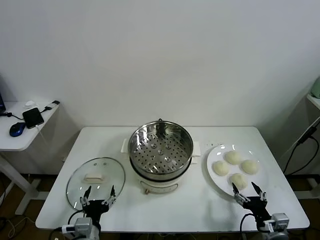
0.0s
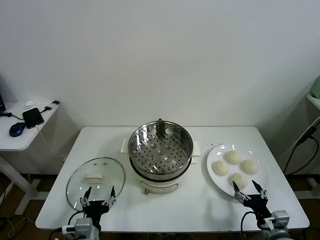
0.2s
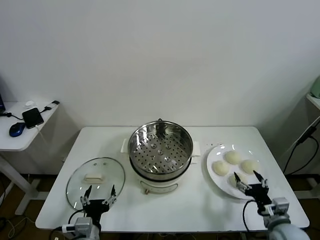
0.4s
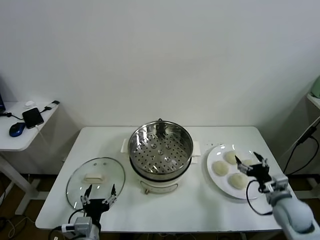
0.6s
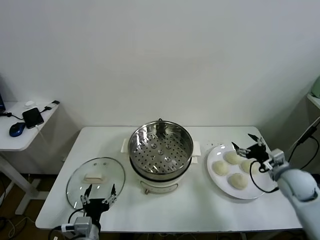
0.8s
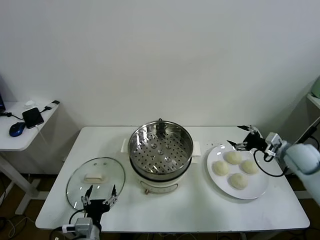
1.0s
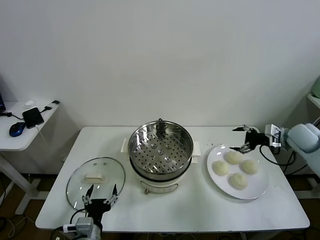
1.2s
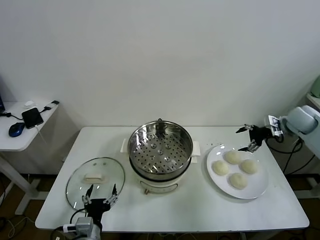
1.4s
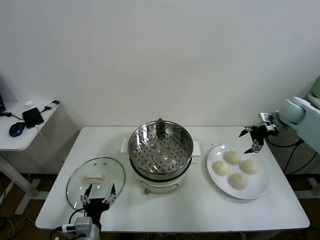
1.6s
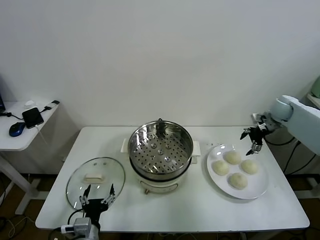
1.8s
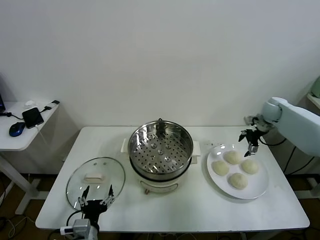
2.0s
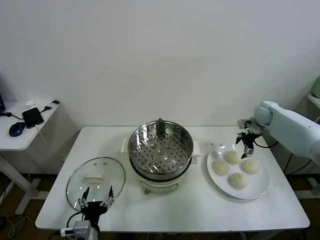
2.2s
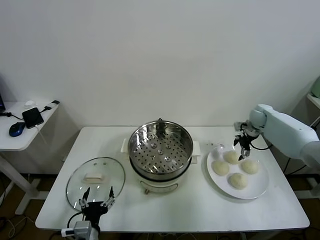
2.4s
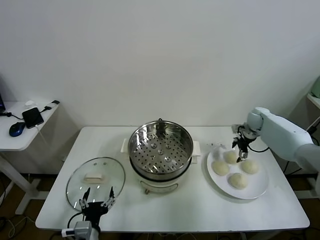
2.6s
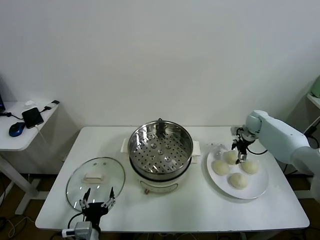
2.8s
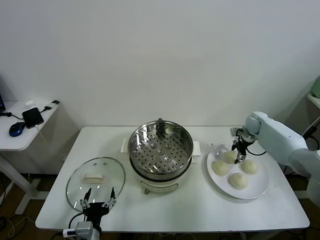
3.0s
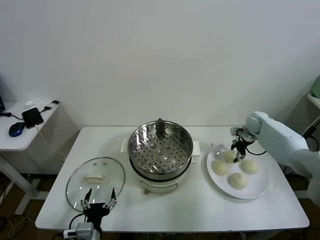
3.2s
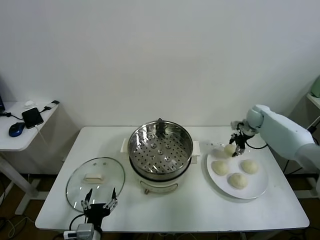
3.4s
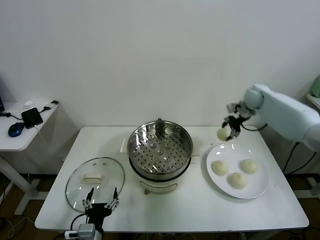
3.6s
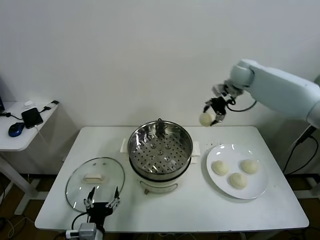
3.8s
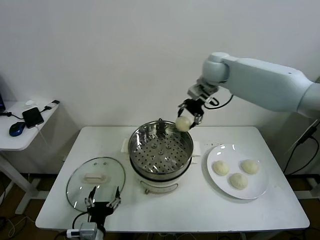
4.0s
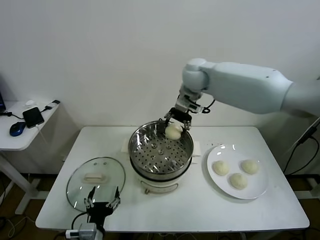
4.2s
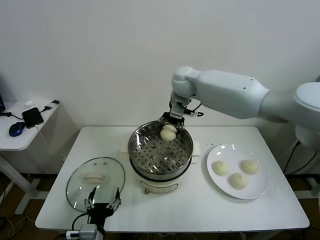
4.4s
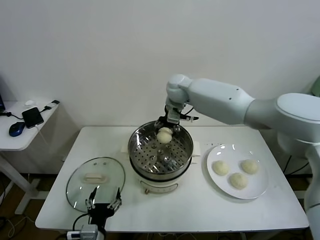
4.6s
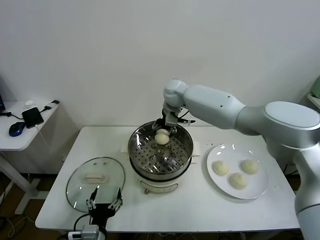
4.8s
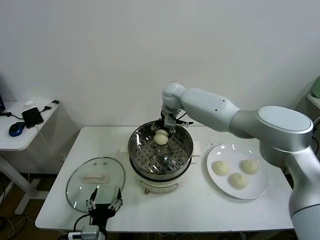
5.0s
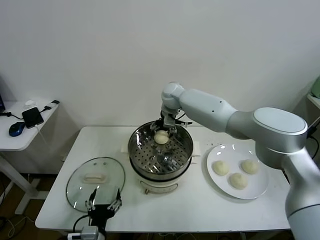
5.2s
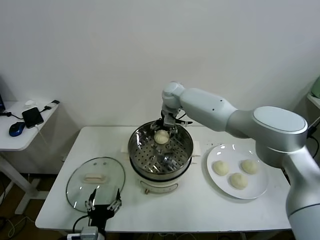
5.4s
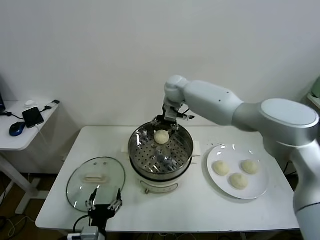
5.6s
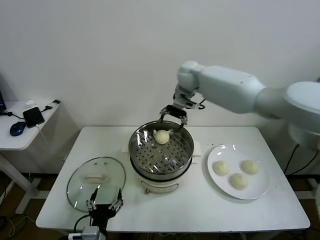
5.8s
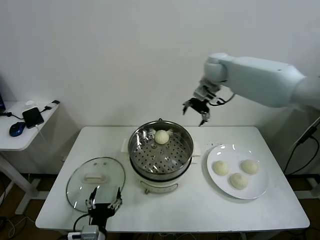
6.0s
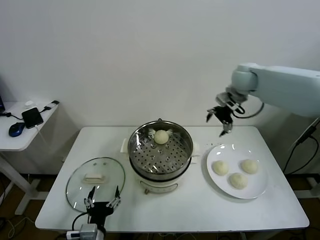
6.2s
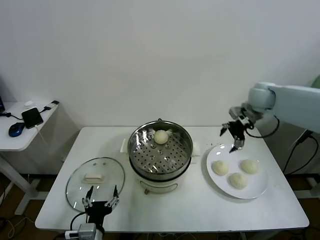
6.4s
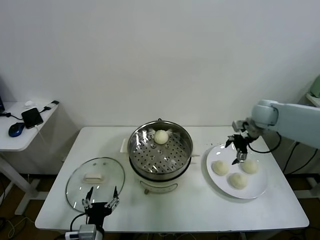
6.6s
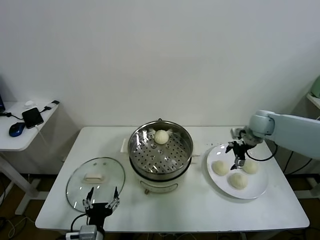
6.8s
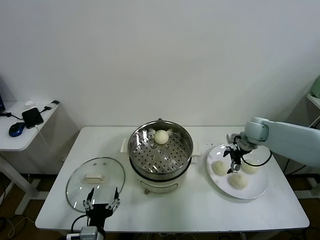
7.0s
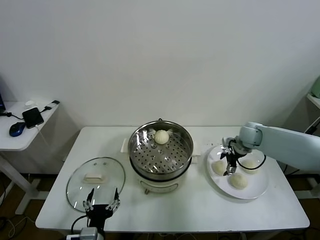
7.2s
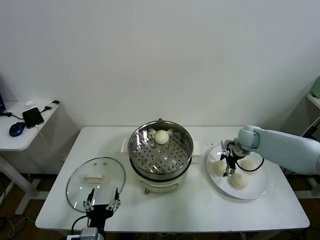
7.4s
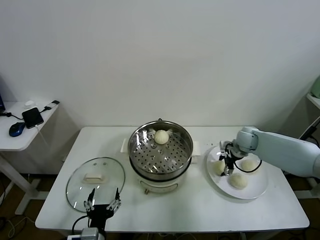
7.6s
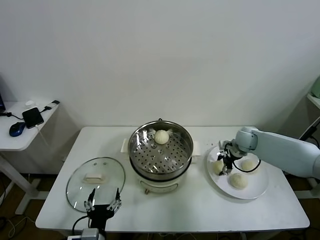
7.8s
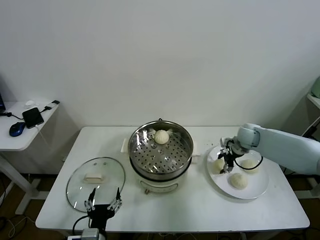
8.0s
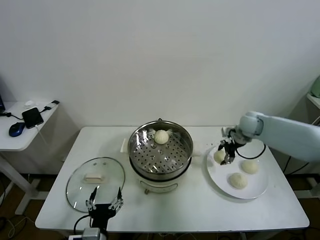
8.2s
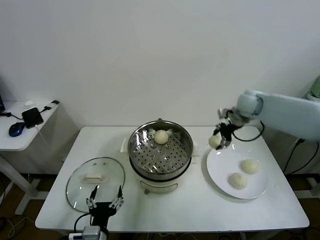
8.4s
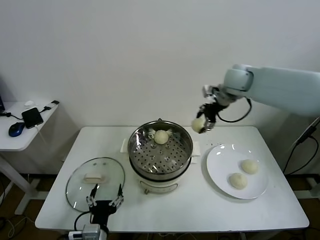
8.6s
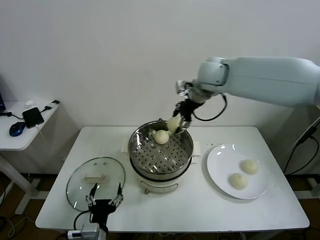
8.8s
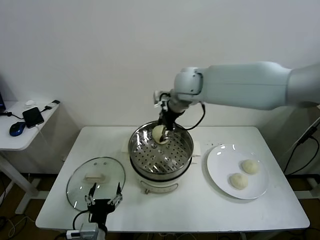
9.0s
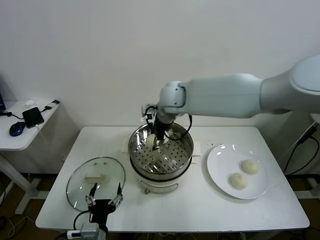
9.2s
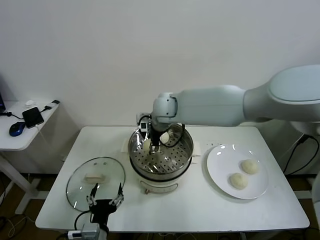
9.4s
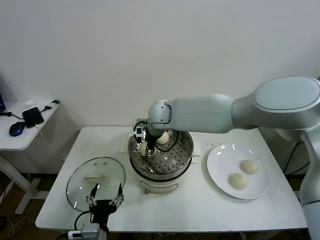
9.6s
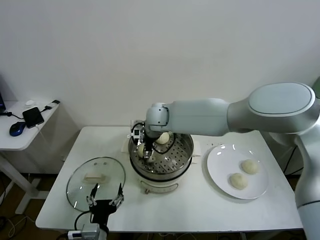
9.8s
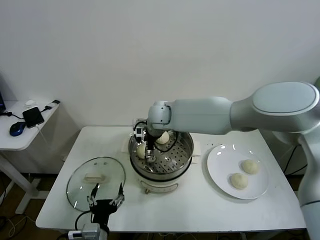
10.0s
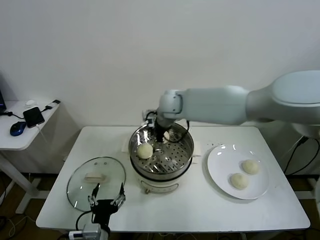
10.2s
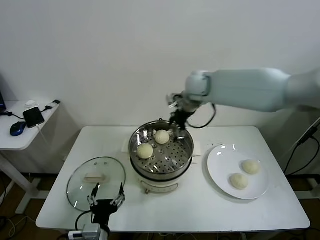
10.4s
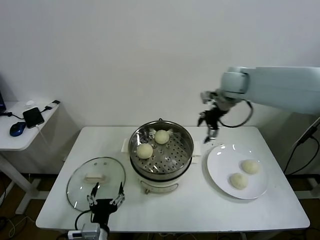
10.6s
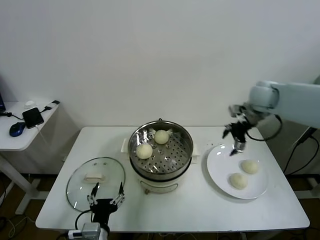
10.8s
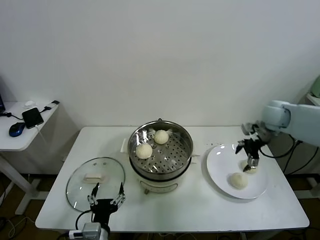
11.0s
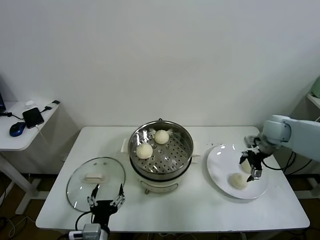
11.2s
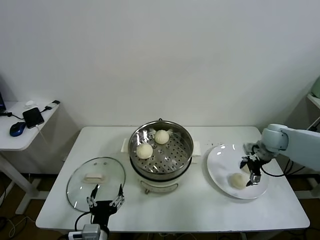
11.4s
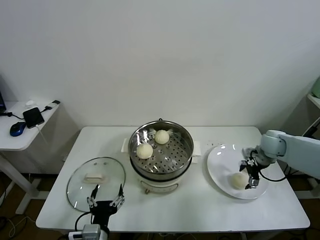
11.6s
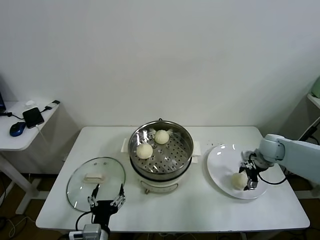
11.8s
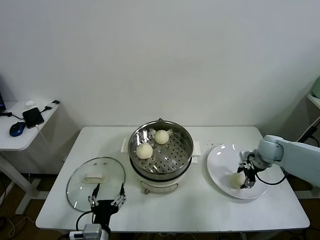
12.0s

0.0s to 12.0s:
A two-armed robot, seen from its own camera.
Task of the whole recording: take steamed baozi put them in steamer.
Step, 0.0s to 3.0s: Grasp the baozi in the plate with right gripper.
Step, 3.2s to 5.4s: Place the baozi on the steamer with right gripper.
Step, 5.6s to 7.6s: Grasp the baozi in the plate with right gripper.
Step, 7.8s to 10.0s: Place the baozi on the steamer with right gripper.
Step, 10.2s to 11.8s: Grasp the baozi in the plate with right gripper.
1.6s to 3.0s: The right gripper shifts about 15 cm downward and to the left, and closes.
3.0s to 4.4s: The right gripper heads to the left and upward, covering some 40 cm.
4.4s to 6.0s: The right gripper shifts approximately 15 cm to the right, and opens up.
6.0s to 7.6s: The right gripper goes roughly 30 cm downward and to the right, and closes up.
7.6s to 9.0s: The right gripper moves to the left and upward, roughly 35 cm.
9.0s to 10.4s: The right gripper moves to the right, approximately 10 cm, and opens.
10.4s to 12.0s: The right gripper moves to the right and downward, roughly 35 cm, and closes up.

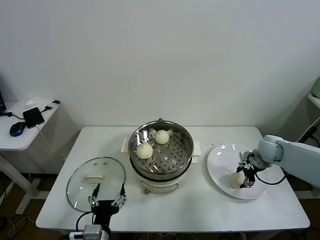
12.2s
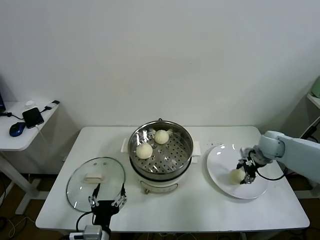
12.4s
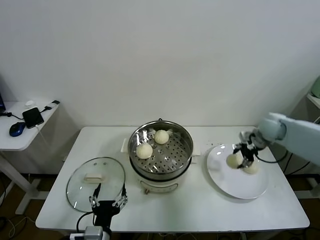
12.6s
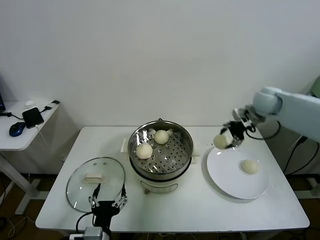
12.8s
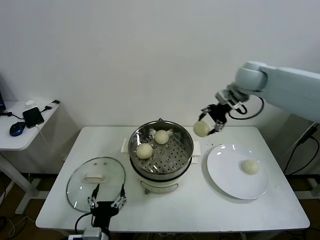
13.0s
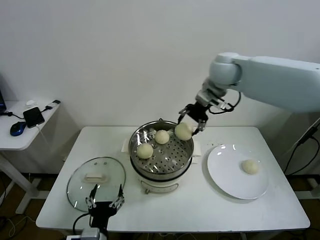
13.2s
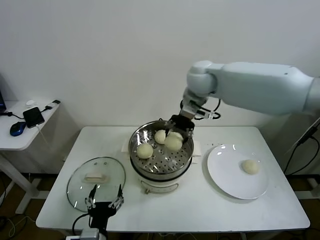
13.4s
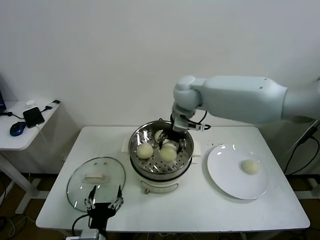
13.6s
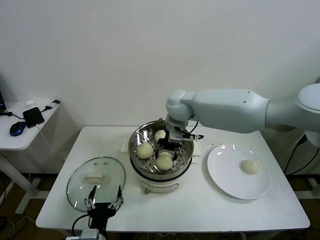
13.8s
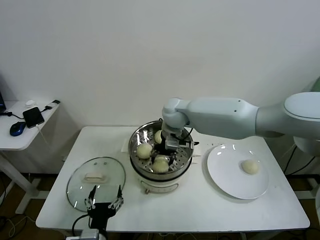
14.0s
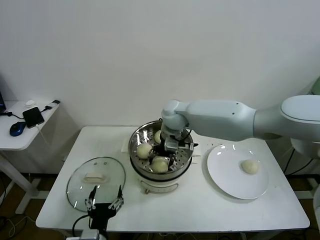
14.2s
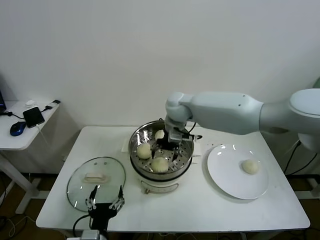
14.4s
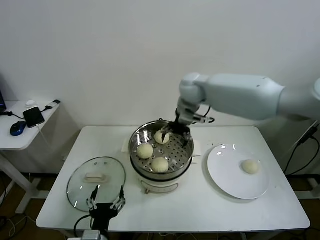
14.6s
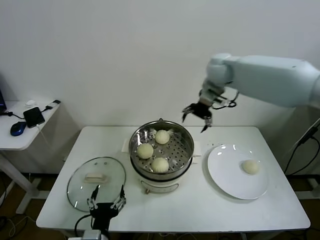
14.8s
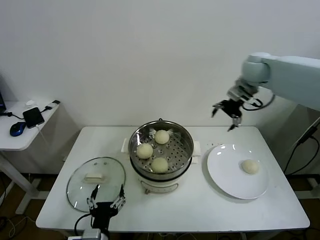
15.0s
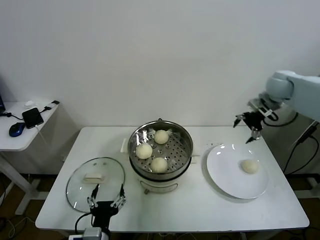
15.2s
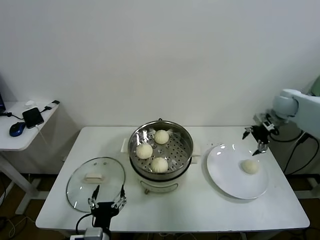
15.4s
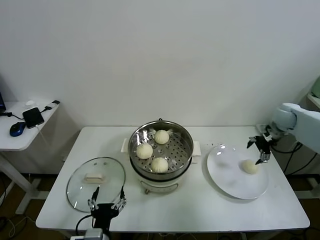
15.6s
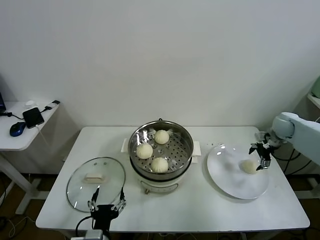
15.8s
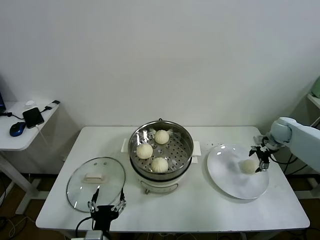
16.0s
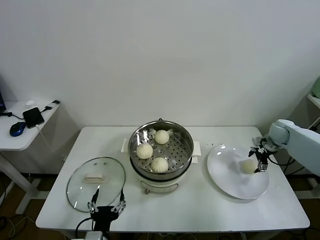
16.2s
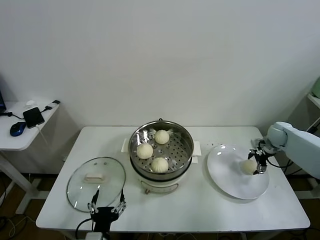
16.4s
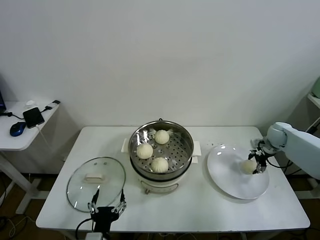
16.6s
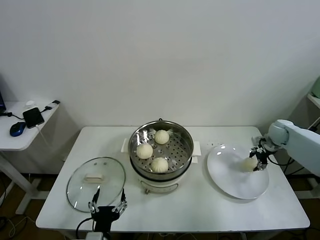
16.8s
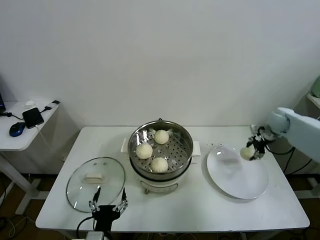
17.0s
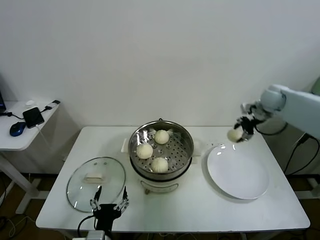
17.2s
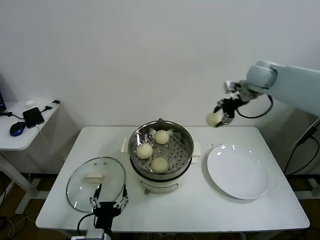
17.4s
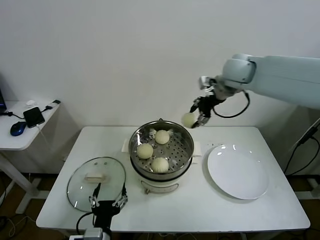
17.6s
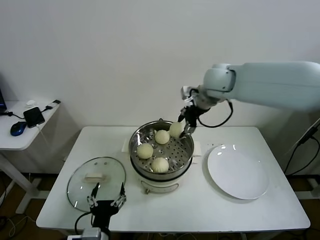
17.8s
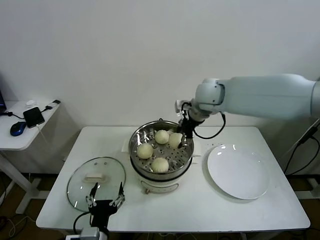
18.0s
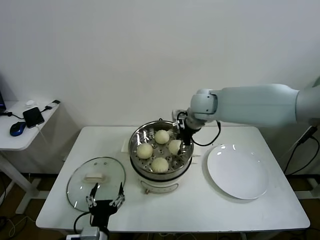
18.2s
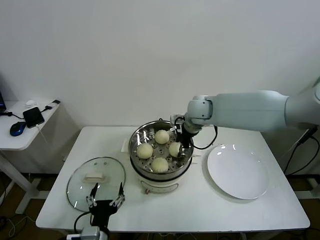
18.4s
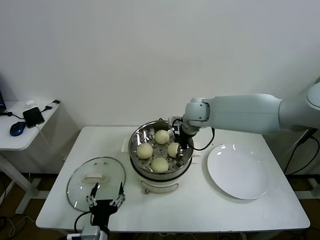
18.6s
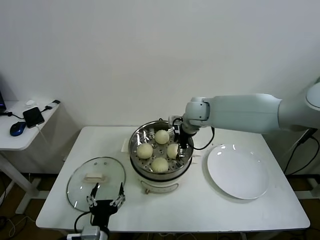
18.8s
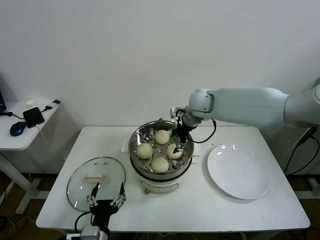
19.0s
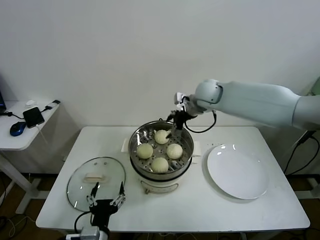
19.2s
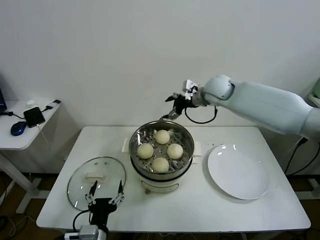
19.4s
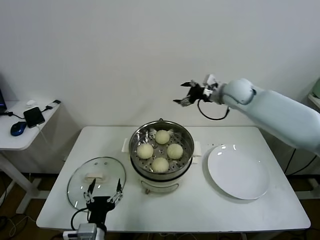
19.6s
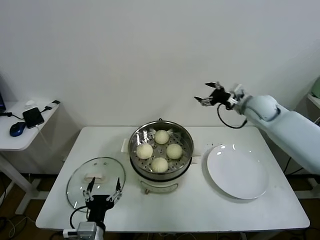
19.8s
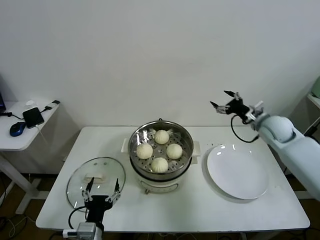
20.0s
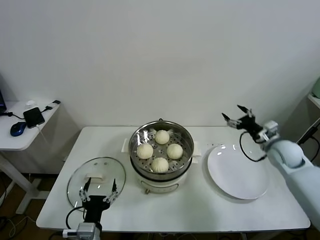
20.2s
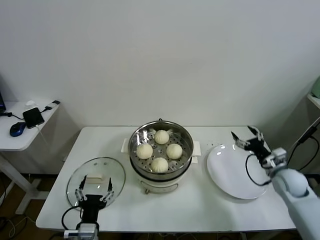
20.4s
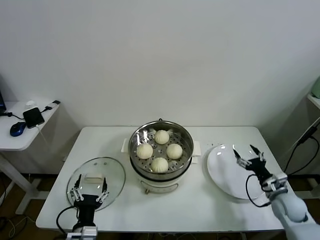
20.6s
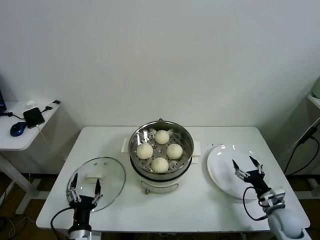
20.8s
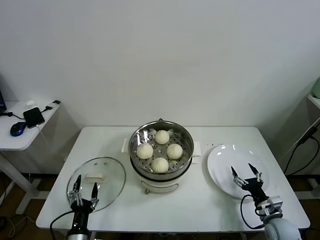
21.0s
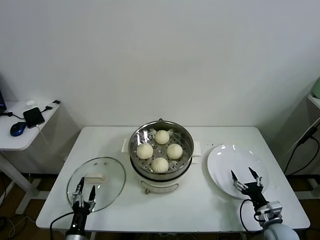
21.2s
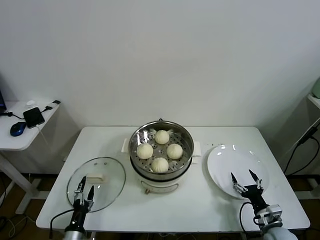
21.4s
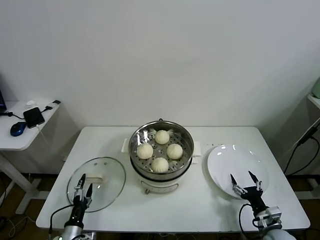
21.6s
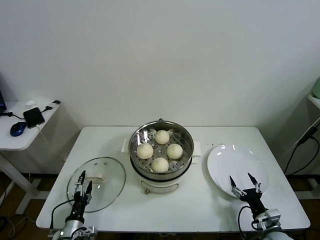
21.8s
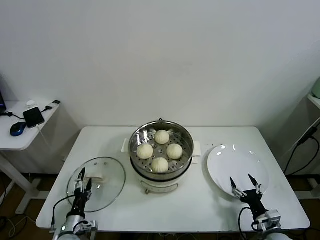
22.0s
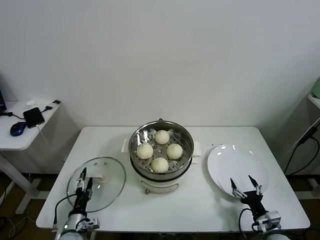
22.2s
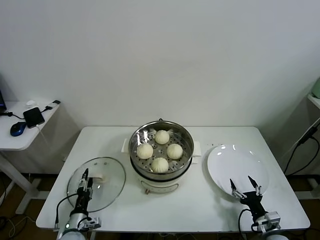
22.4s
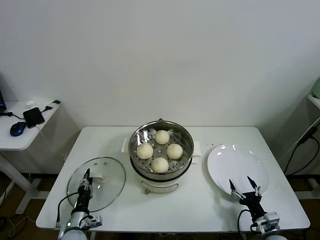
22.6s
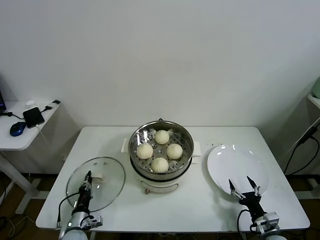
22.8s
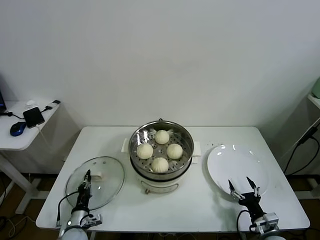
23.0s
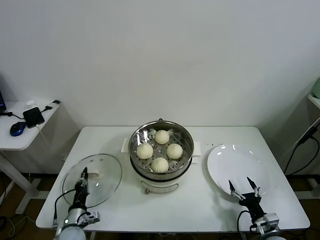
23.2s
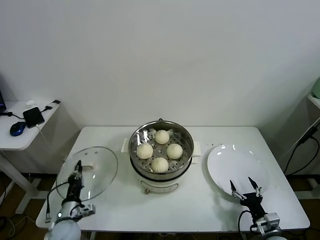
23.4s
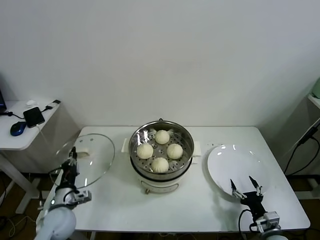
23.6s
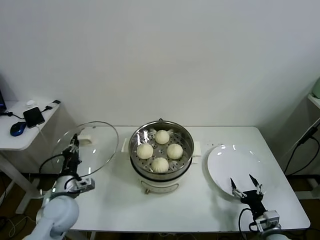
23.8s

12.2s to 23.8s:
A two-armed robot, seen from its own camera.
Task of the whole recording: take steamed baozi put them in steamer.
Step, 12.2s to 14.4s: Place the baozi on the steamer with right gripper.
Step, 14.6s to 16.4s: Grasp the baozi in the plate with right gripper.
Step, 16.8s to 18.8s: Place the baozi on the steamer with right gripper.
Step, 19.0s to 23.0s: Grasp the pot lid with left gripper.
12.2s to 13.6s: The right gripper goes some 40 cm to the left and upward.
13.6s to 15.0s: The right gripper goes approximately 25 cm to the right, and opens up.
15.0s to 16.6s: The right gripper is displaced downward and to the right by about 30 cm, and closes up.
16.6s to 18.0s: The right gripper heads to the left and upward, covering some 40 cm, and closes.
18.0s to 19.4s: The right gripper shifts by some 5 cm, and opens.
19.4s to 21.0s: The left gripper is displaced downward and to the left by roughly 15 cm; the right gripper goes roughly 50 cm downward, backward and to the right.
21.0s to 22.4s: The right gripper moves some 5 cm, while the left gripper is displaced forward, downward and to the left by approximately 10 cm.
22.4s to 23.8s: The left gripper travels upward by some 20 cm, and closes.
